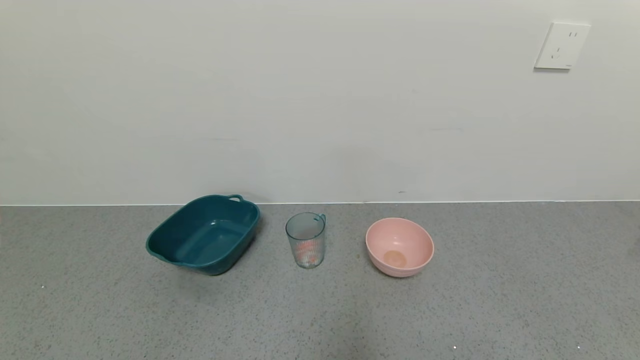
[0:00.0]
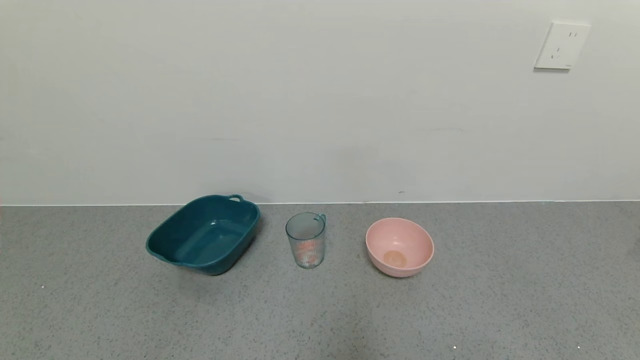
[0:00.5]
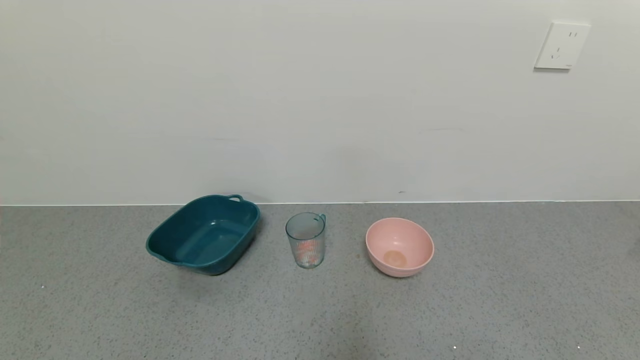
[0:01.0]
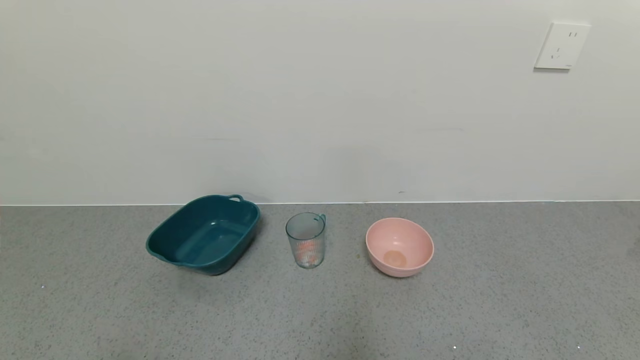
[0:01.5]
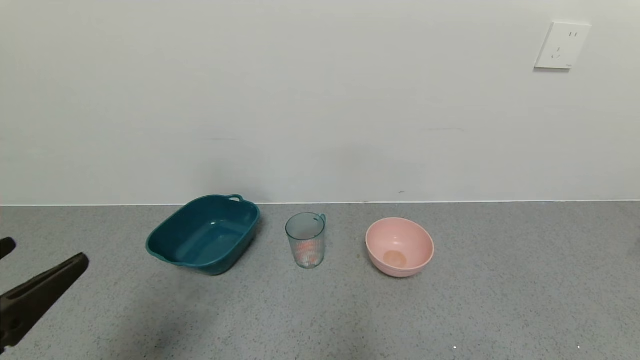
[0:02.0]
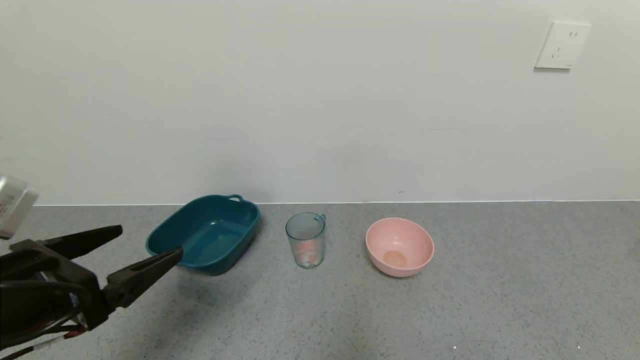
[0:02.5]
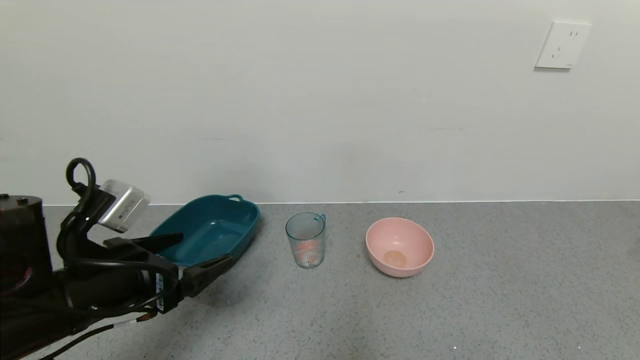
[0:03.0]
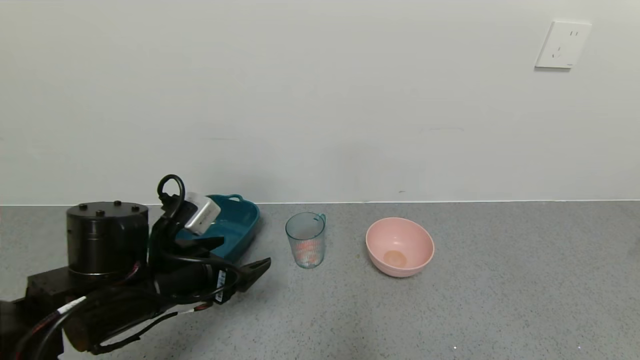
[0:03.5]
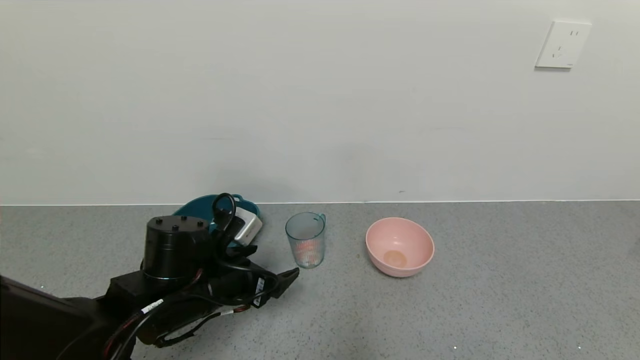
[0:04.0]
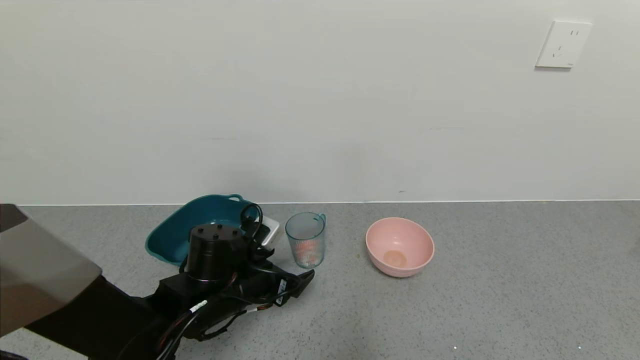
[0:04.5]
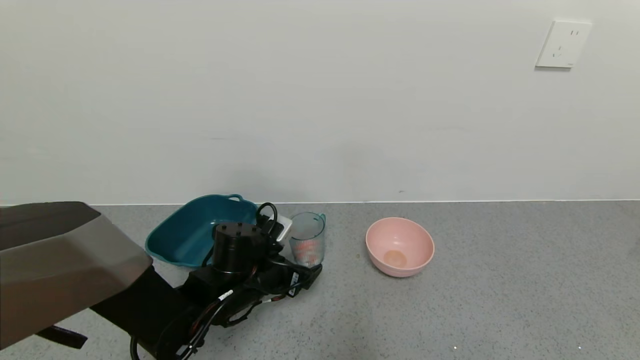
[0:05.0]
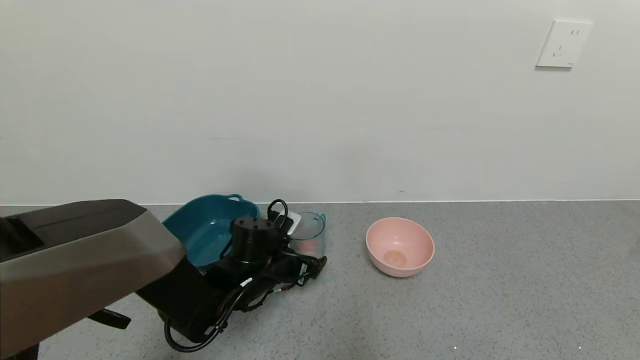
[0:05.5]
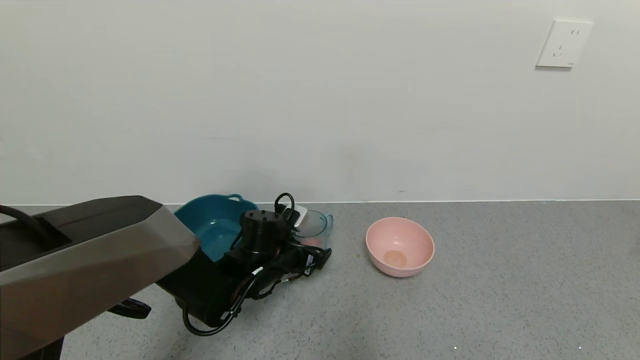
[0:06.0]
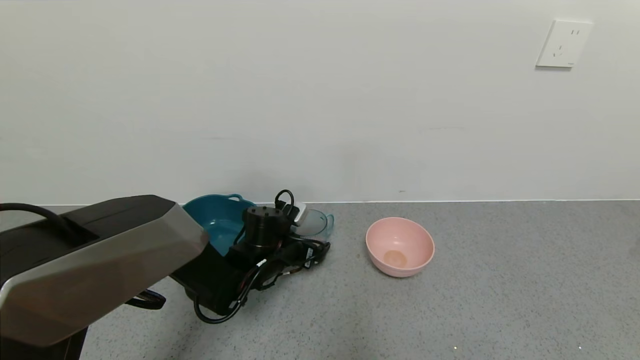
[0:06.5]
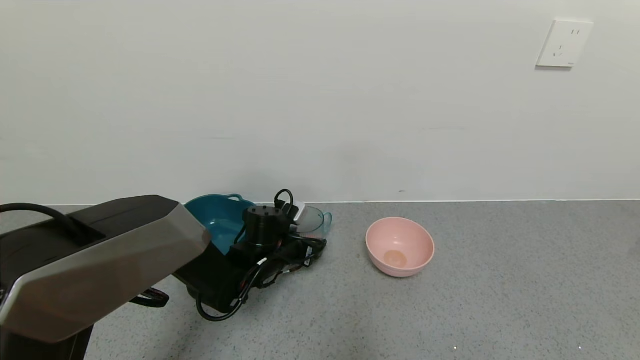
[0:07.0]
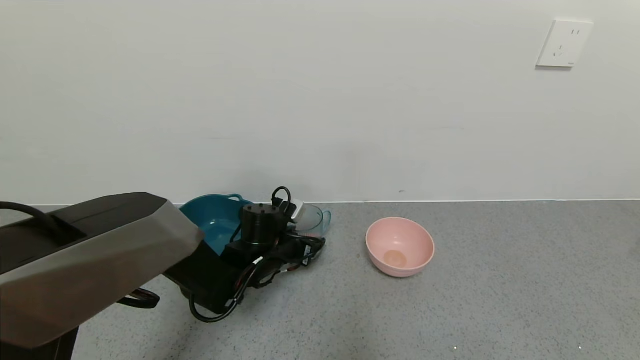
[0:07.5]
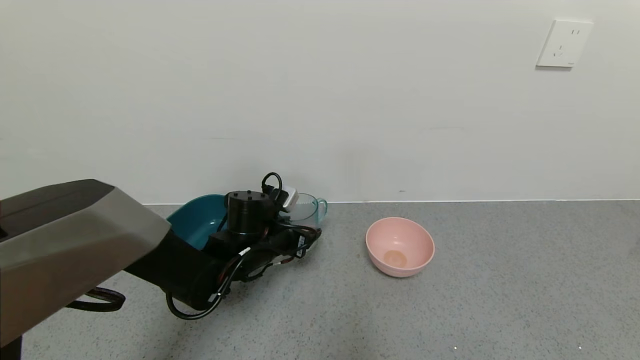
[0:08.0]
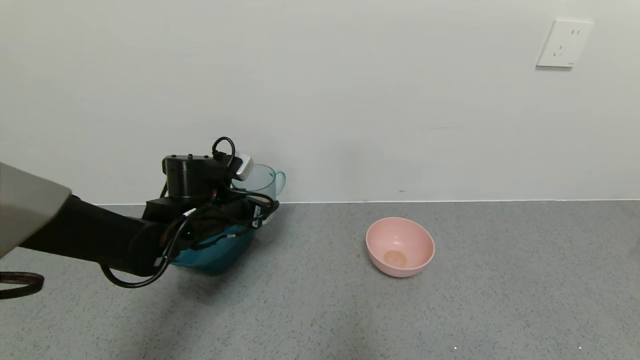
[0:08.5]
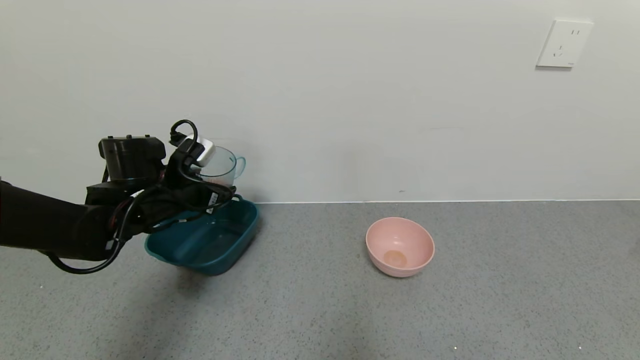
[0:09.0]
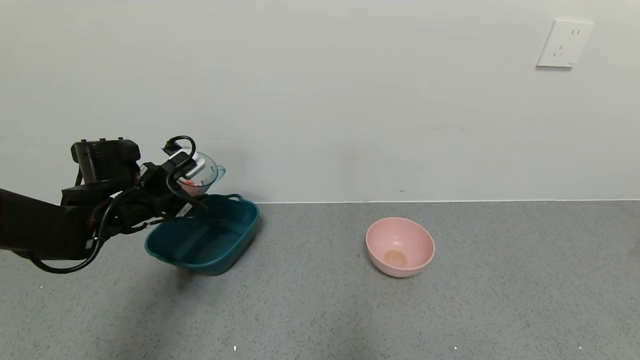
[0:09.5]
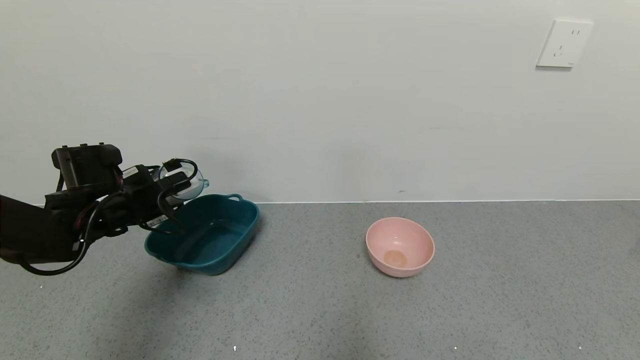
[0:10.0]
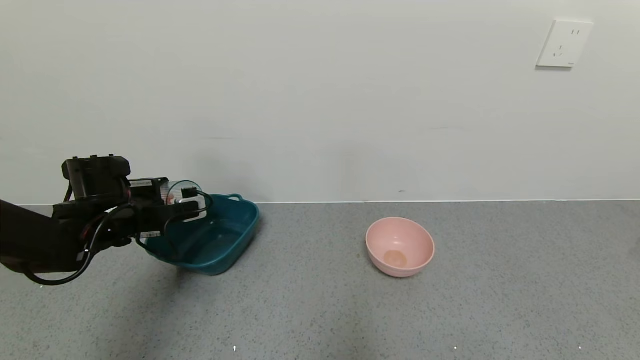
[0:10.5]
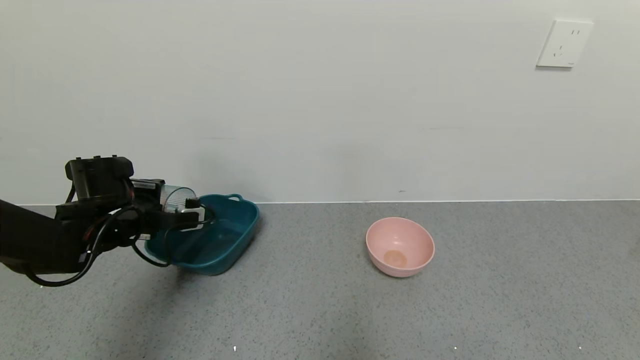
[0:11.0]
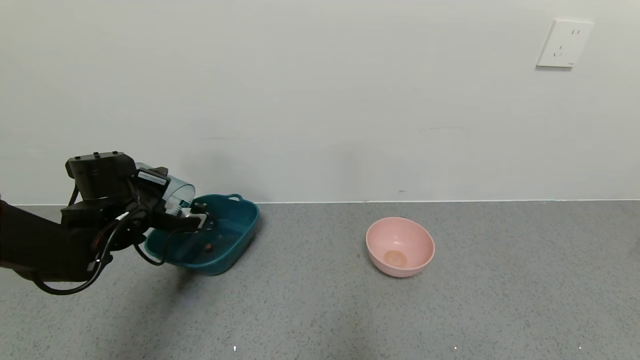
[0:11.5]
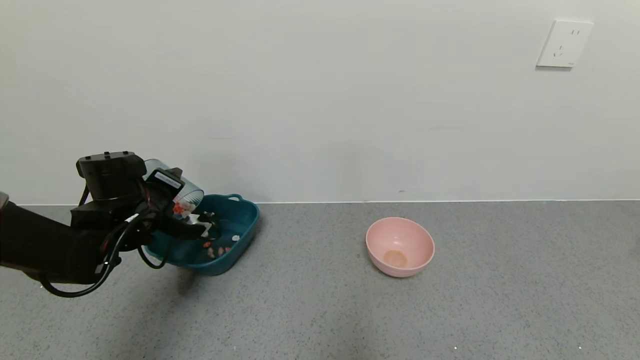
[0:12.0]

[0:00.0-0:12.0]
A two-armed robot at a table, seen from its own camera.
Task of the whole recording: use a gripper to pick up the cup and pour the solid into a bowl or tray.
Step, 0:00.0 to 0:06.5: Grasp the glass of shrimp with the left gripper.
0:00.0 to 0:02.0: The left gripper travels upward and forward by approximately 15 cm.
0:02.0 to 0:04.0: The left gripper heads forward, to the right and downward, covering approximately 25 cm.
0:04.0 to 0:06.0: The left gripper shifts some 15 cm forward, downward and to the right.
0:06.0 to 0:08.0: The left gripper closes up.
0:08.0 to 0:10.0: The left gripper moves to the left, approximately 20 cm.

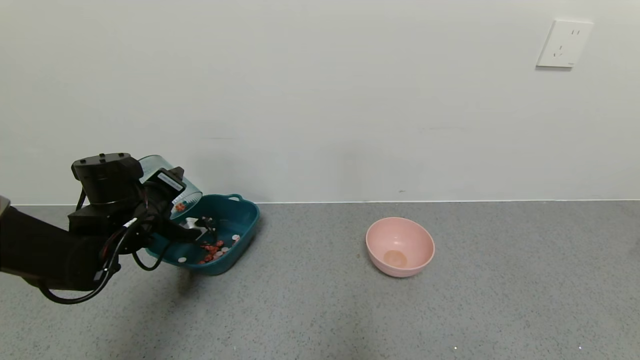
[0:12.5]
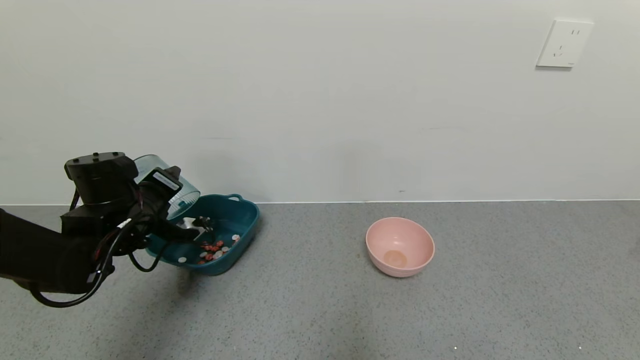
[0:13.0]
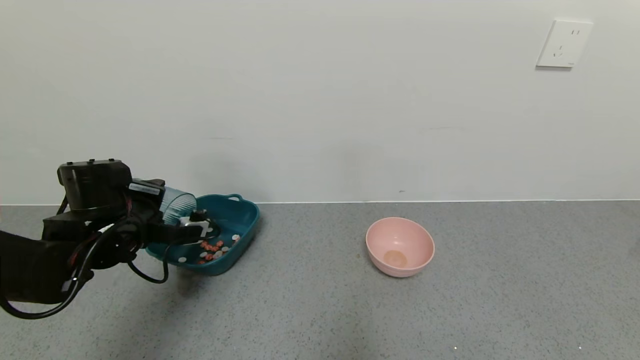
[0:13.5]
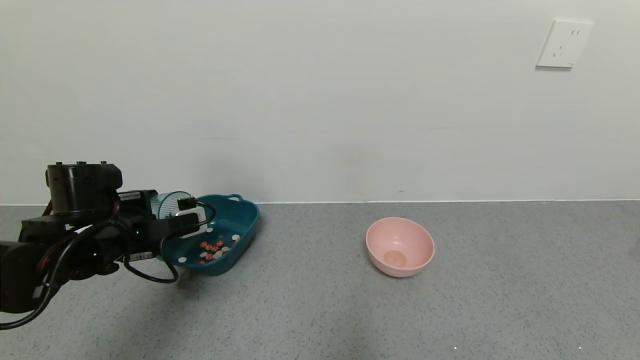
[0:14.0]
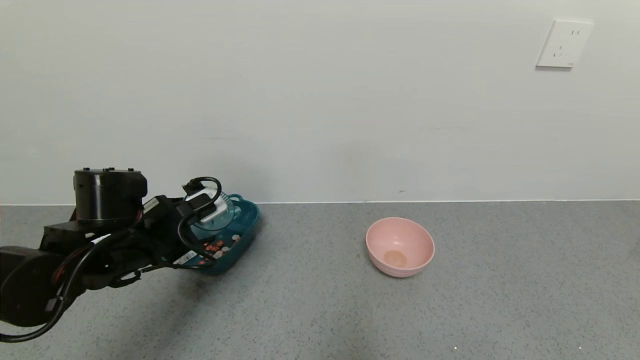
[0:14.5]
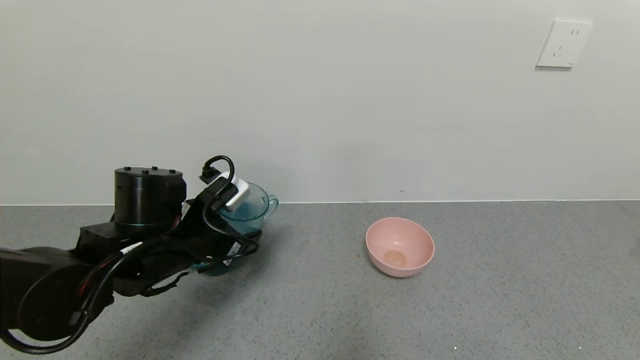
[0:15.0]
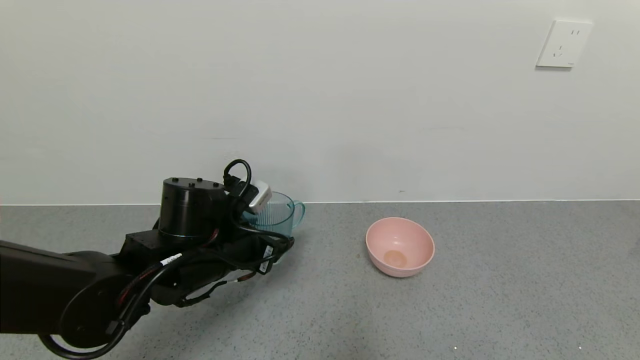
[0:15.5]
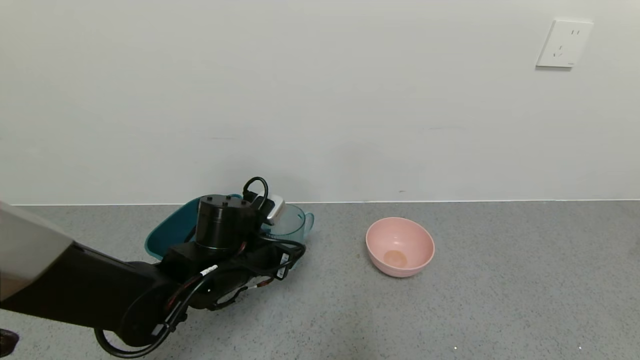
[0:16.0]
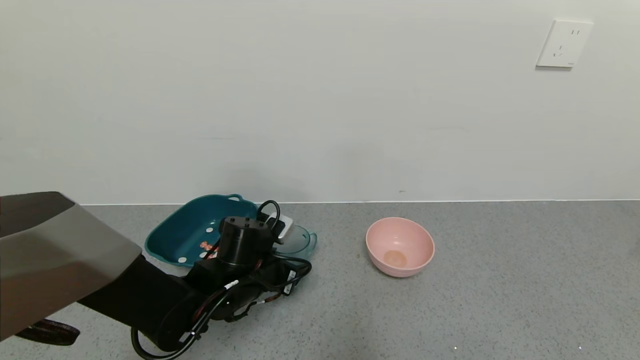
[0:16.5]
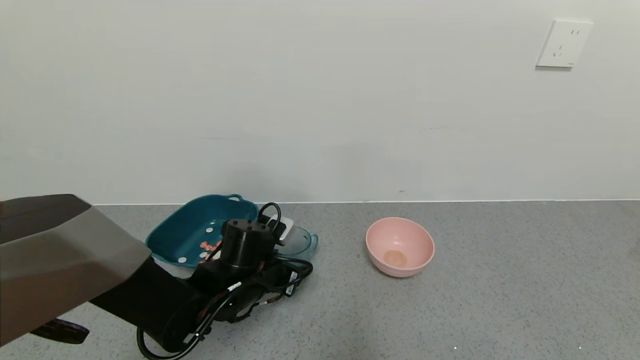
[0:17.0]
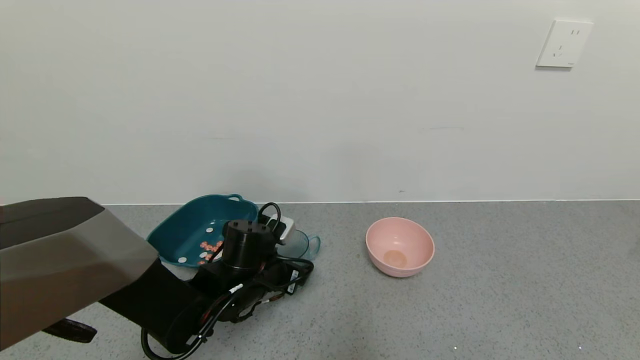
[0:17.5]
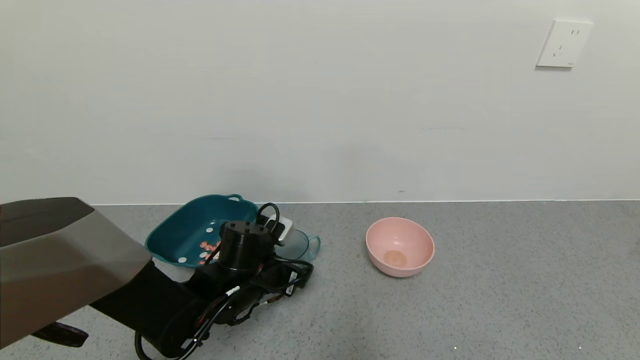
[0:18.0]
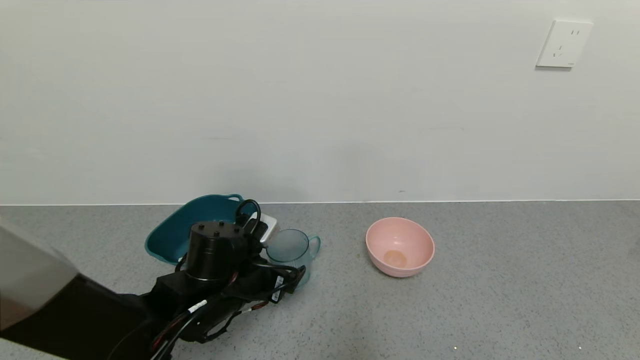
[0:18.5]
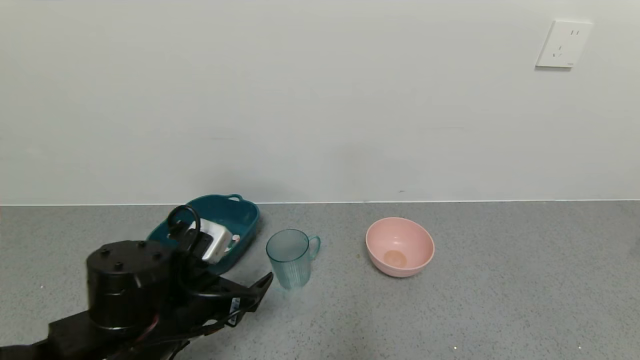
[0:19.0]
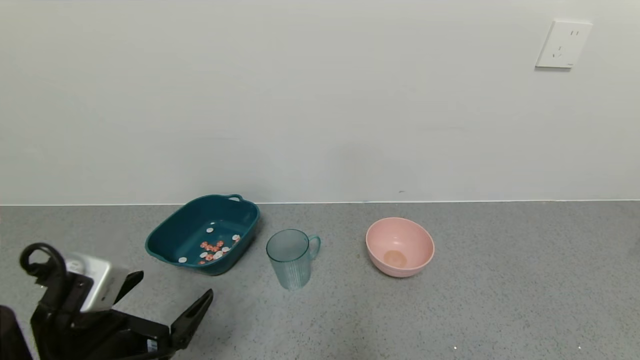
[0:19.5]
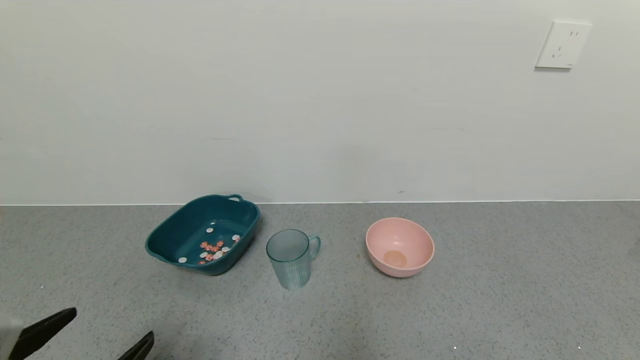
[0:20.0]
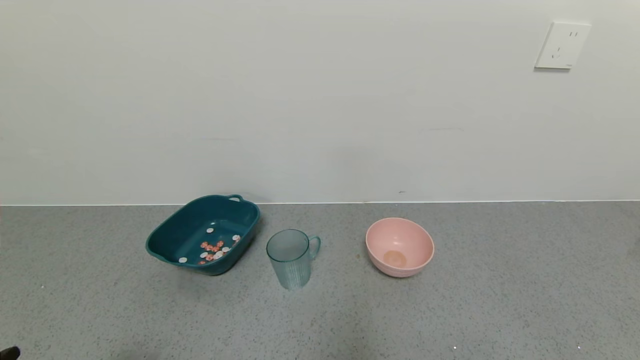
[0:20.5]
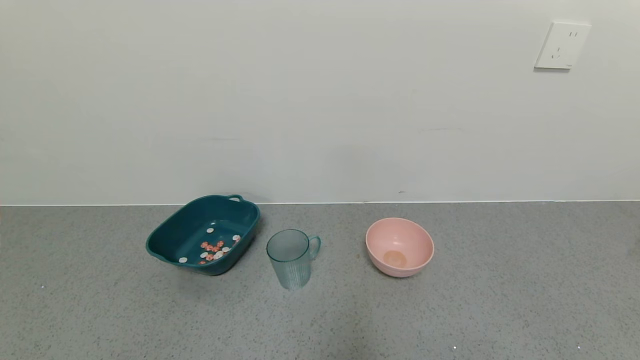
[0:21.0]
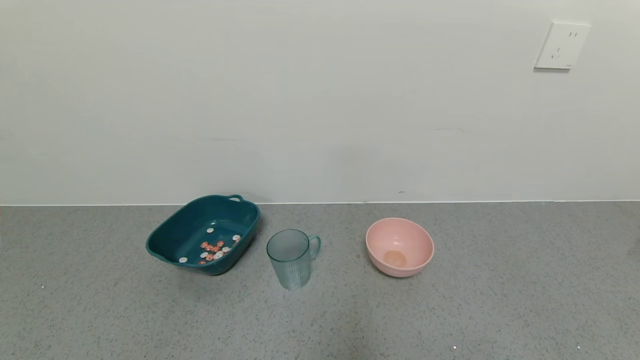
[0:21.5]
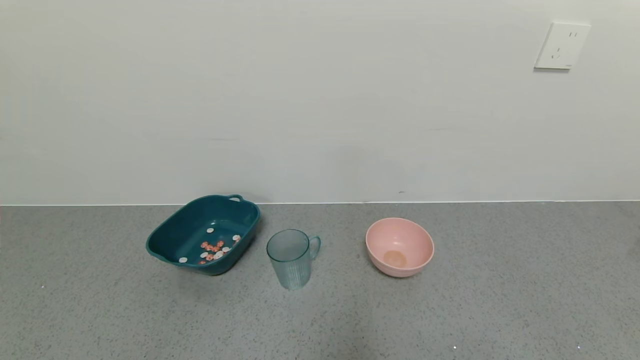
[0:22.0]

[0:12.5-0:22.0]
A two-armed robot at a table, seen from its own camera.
Task of the whole recording: use a gripper to pick up the cup and pour the solid into a bowl or tray.
Step, 0:13.5 to 0:18.5: Place the glass cup with the left gripper.
0:12.5 to 0:14.5: The left gripper travels backward by approximately 5 cm.
0:14.5 to 0:16.5: The left gripper moves to the right and downward, roughly 15 cm.
0:16.5 to 0:18.0: The left gripper opens up.
0:18.0 to 0:20.0: The left gripper travels backward and to the left by about 25 cm.
0:20.0 to 0:22.0: The left gripper is displaced backward and downward by some 10 cm.
